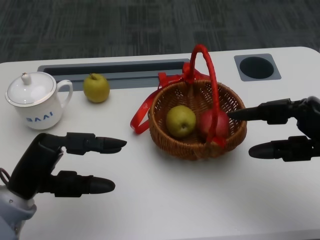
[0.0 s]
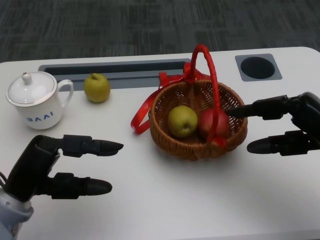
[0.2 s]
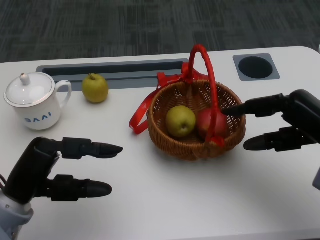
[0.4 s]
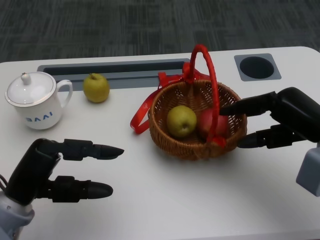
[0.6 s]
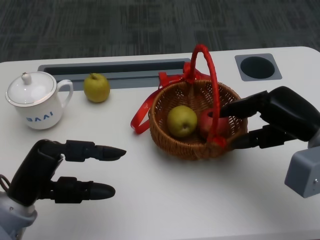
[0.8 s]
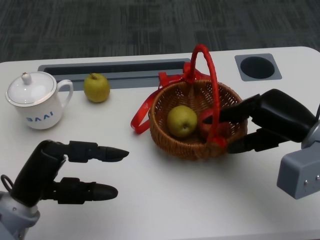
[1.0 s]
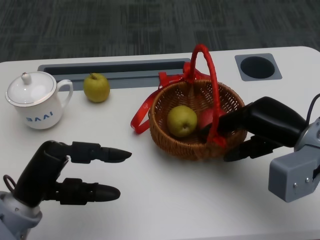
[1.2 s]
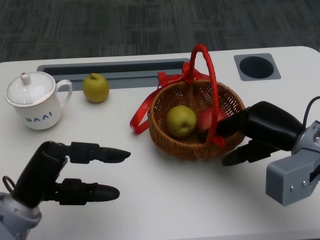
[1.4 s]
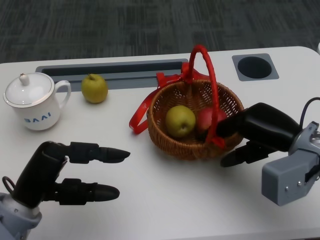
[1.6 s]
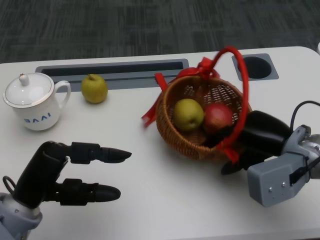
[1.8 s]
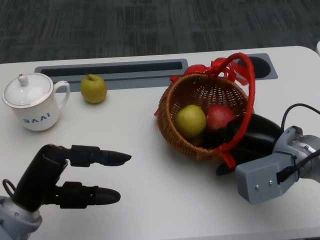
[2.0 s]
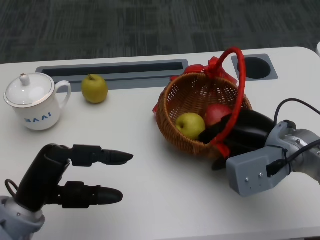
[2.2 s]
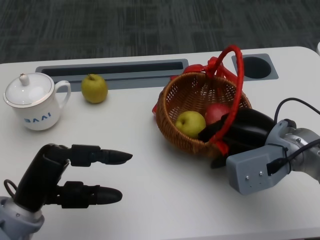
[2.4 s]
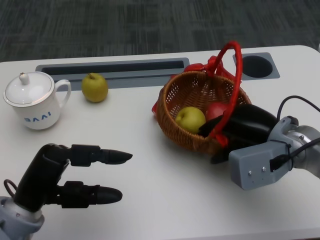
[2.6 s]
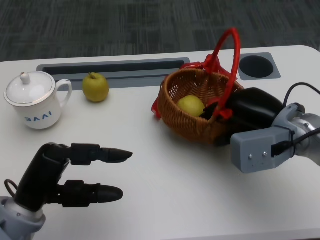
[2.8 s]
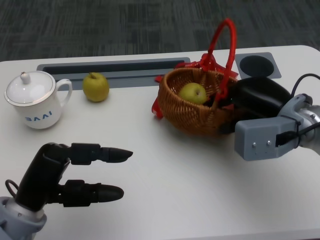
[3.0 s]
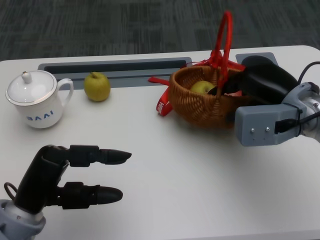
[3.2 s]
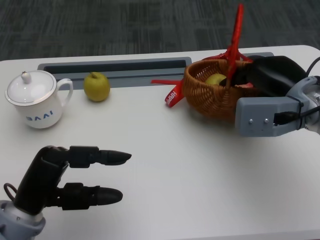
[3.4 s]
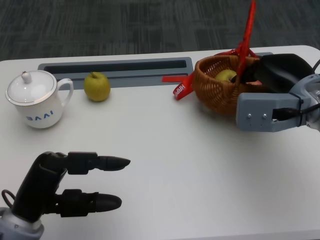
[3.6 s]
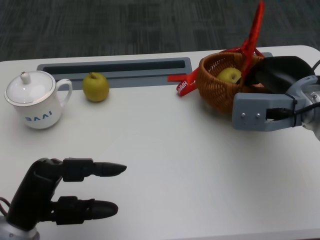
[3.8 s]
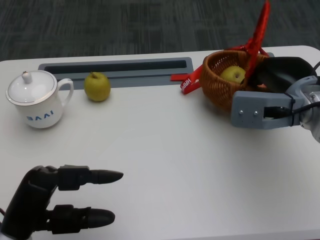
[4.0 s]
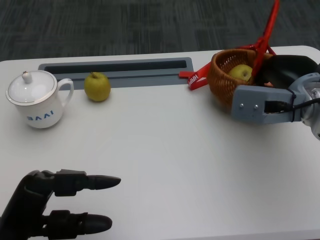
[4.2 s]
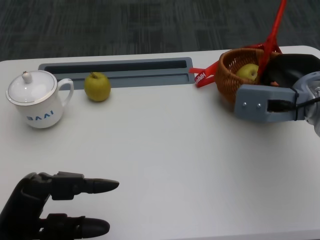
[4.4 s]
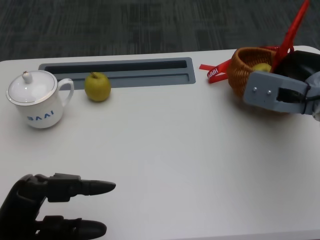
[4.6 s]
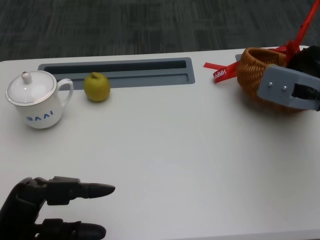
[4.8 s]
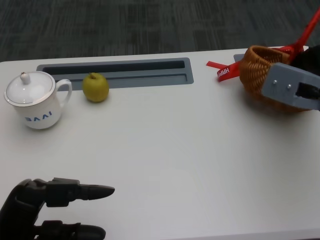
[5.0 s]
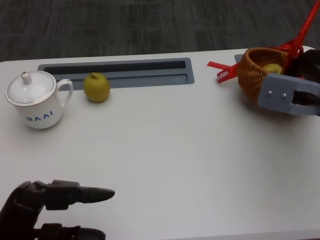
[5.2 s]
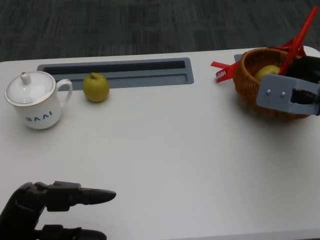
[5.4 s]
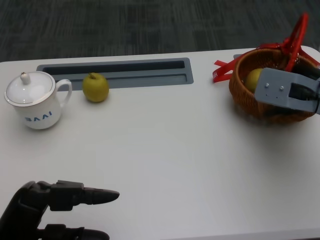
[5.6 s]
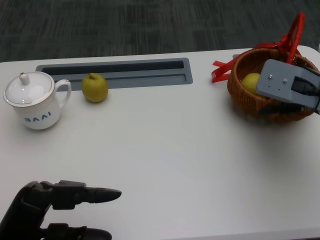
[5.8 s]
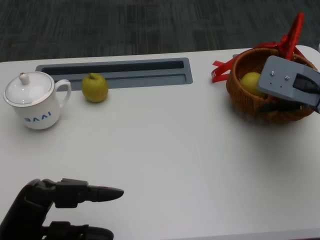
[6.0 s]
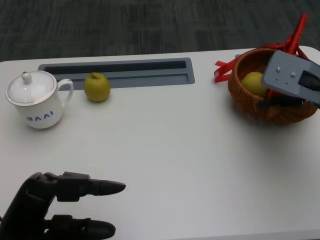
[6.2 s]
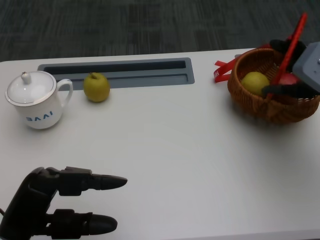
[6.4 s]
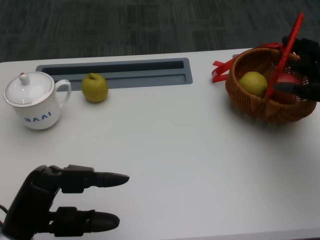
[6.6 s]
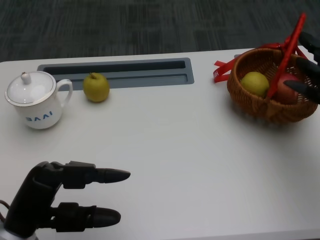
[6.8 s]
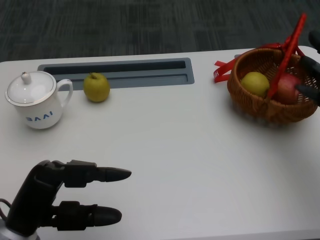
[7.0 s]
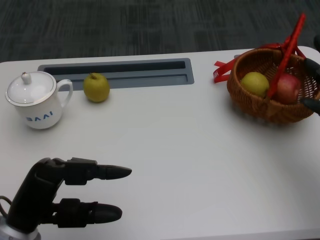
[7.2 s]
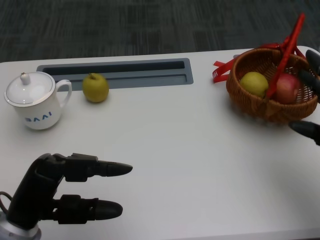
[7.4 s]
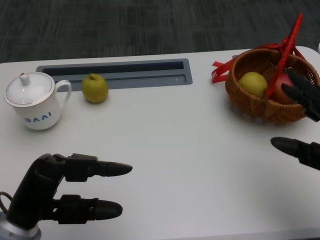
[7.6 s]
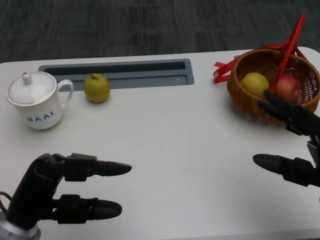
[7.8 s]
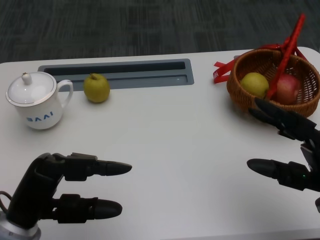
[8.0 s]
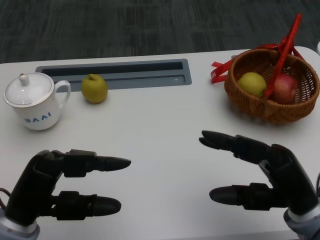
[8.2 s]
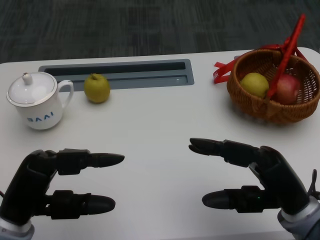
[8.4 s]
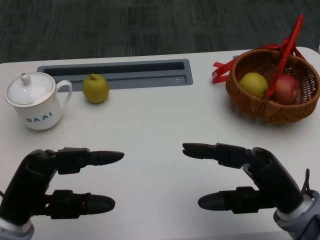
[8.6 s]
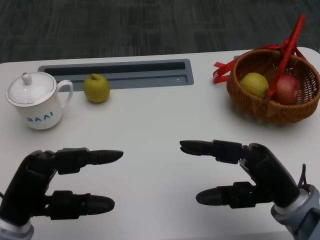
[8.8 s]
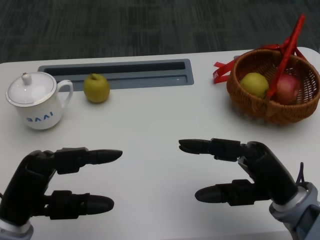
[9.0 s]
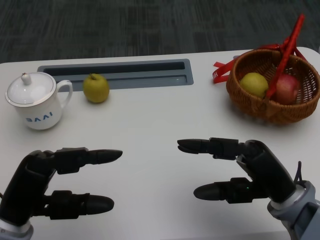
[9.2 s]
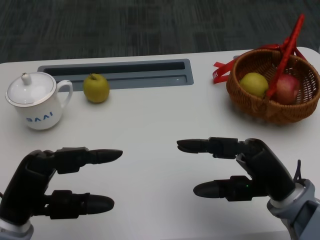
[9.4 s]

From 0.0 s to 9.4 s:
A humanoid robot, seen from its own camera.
Step, from 1.0 s to 3.4 s: Move the basket to the front of the table with the right gripper.
From 0.0 s to 1.6 s: The right hand moves to the left, some 5 cm.
From 1.6 s to 3.2 s: The right hand ends up approximately 5 cm from where it was.
From 3.2 s to 4.8 s: The left hand is displaced backward by approximately 5 cm.
From 6.2 s to 7.8 s: The right hand moves backward and downward, roughly 15 cm.
From 7.8 s to 9.4 s: The right hand heads to the left, covering roughly 5 cm.
